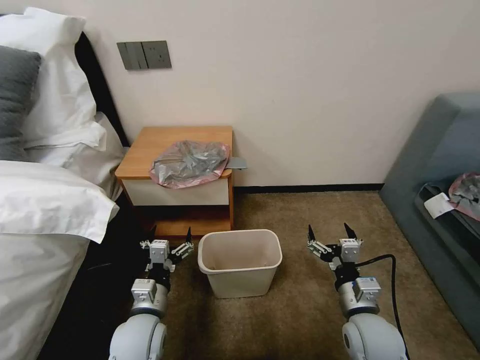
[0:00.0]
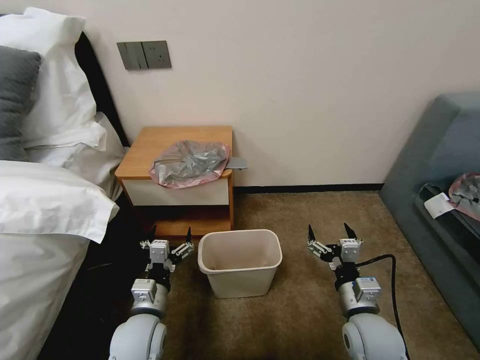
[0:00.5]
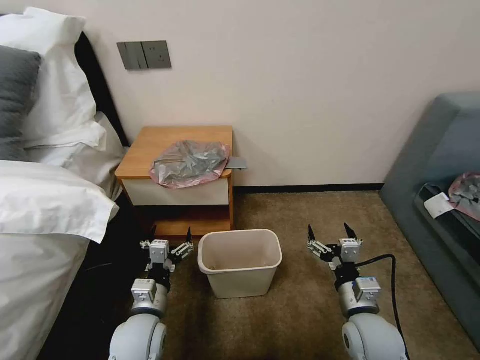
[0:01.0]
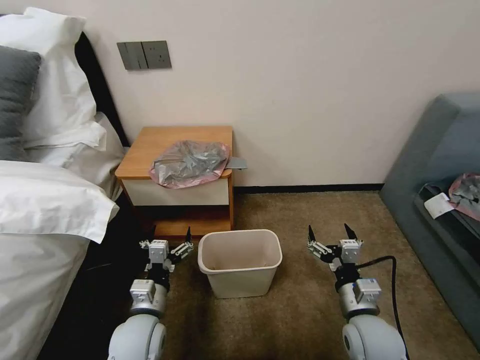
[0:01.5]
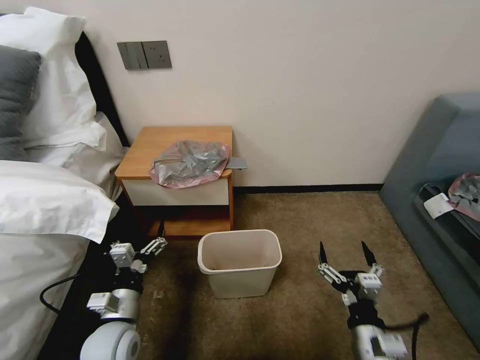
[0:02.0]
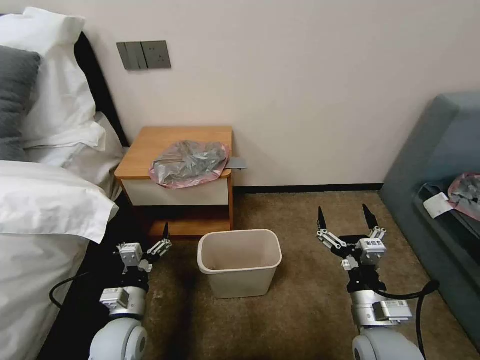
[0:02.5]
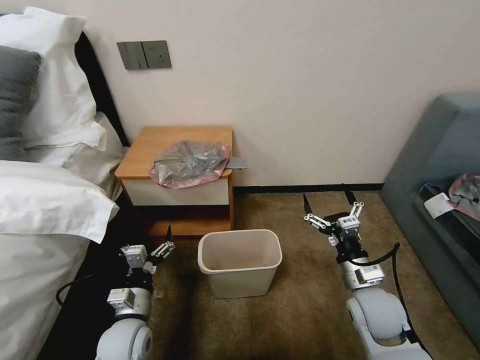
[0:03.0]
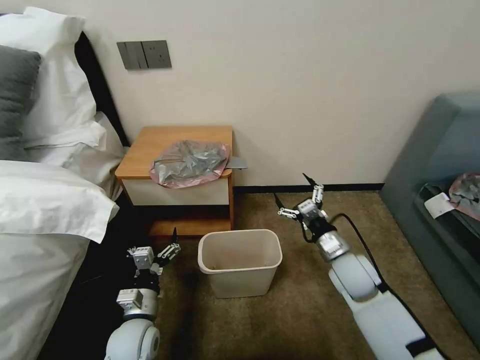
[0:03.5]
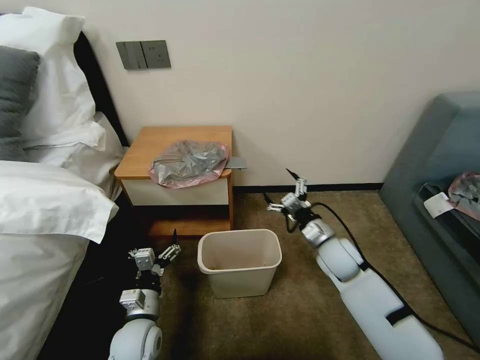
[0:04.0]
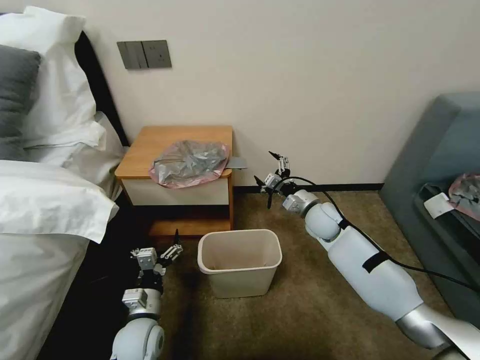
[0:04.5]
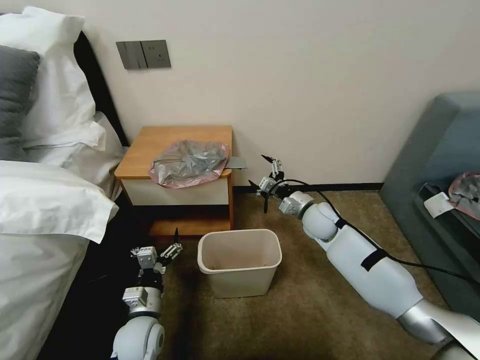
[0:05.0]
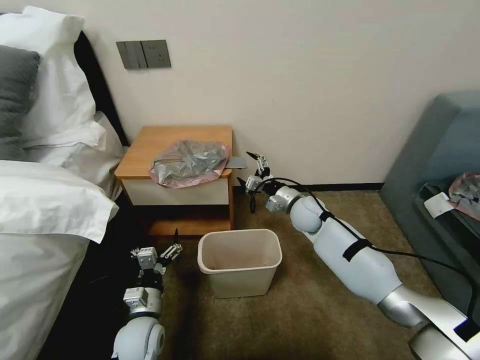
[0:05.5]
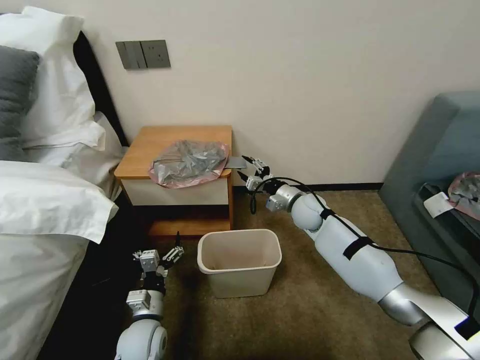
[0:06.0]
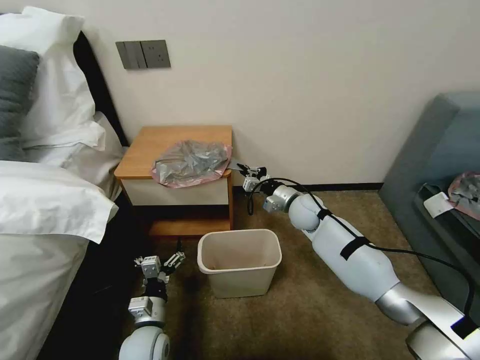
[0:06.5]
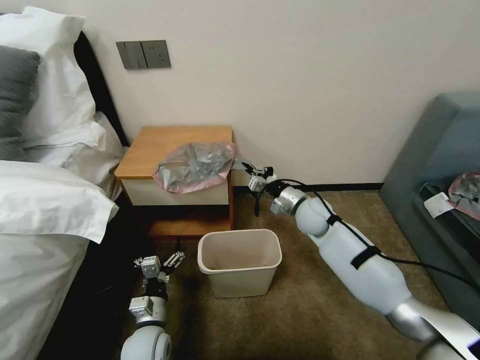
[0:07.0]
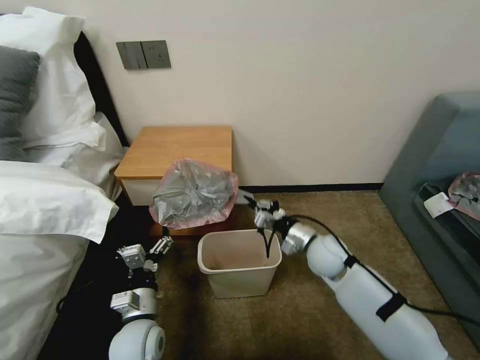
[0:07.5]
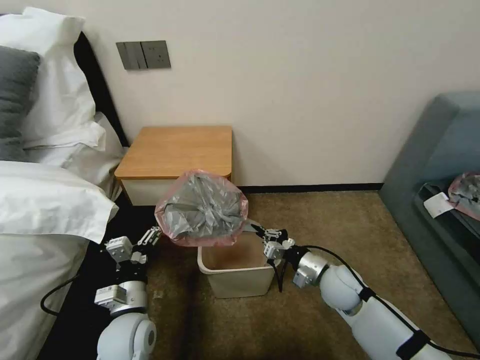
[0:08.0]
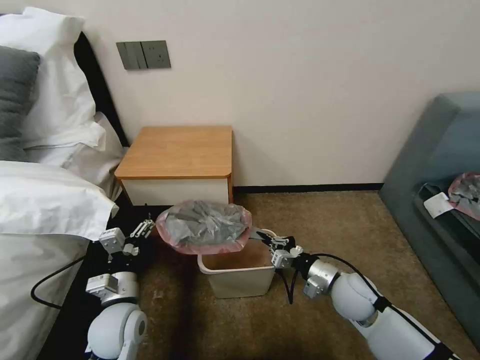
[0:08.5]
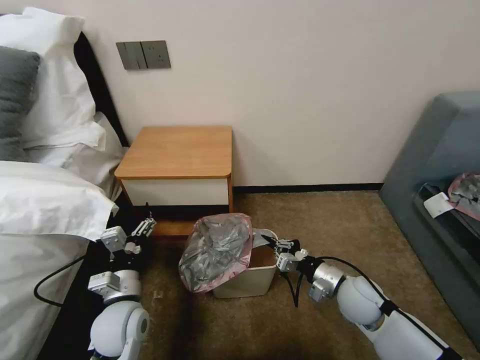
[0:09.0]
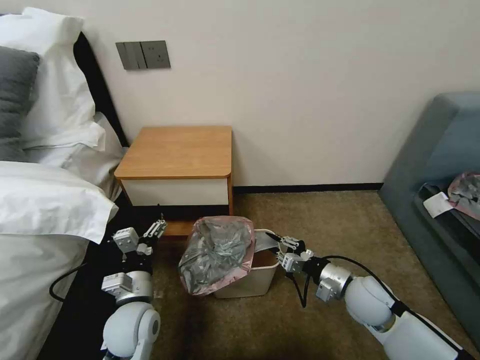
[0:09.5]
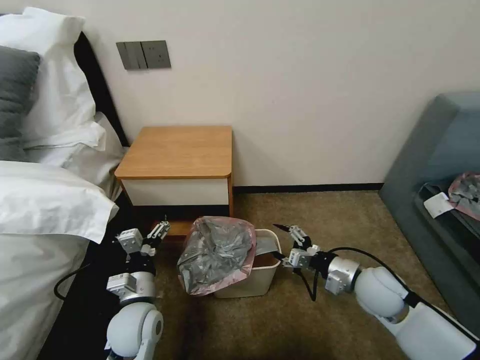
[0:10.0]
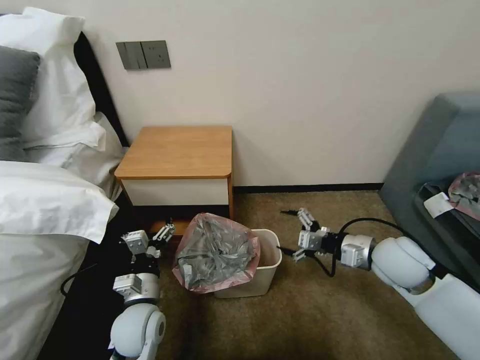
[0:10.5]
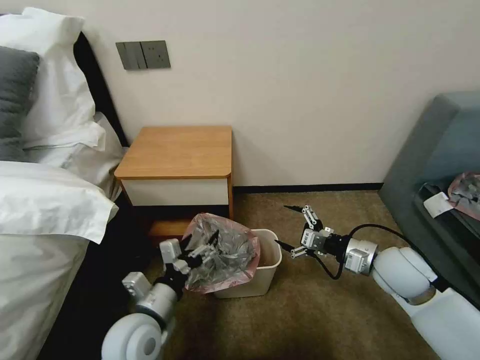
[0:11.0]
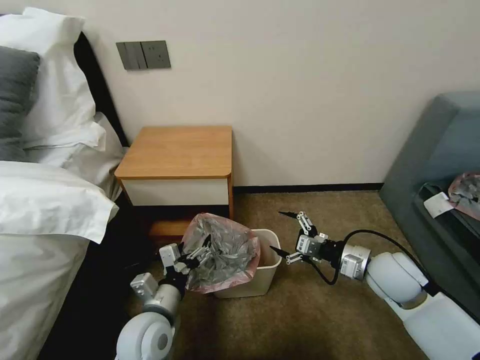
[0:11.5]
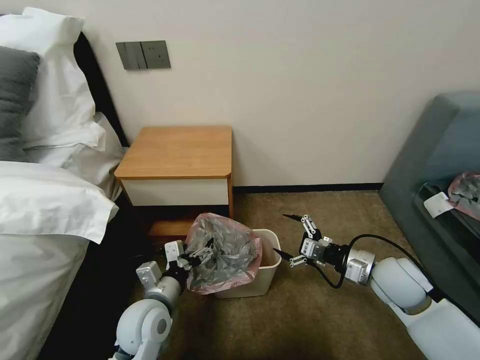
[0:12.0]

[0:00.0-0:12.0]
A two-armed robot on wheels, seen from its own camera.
Task of the whole recording: Pick up the garbage bag from the table and place it over the trash can.
0:02.0 to 0:04.0: The left gripper heads downward, covering some 5 cm; the right gripper is displaced forward by about 25 cm.
0:04.0 to 0:06.0: The right gripper goes roughly 15 cm forward and to the left, and closes its fingers.
0:06.0 to 0:08.0: The right gripper is displaced backward by about 20 cm, and closes; the left gripper shifts roughly 10 cm upward.
0:08.0 to 0:10.0: The right gripper goes some 5 cm to the right, and opens.

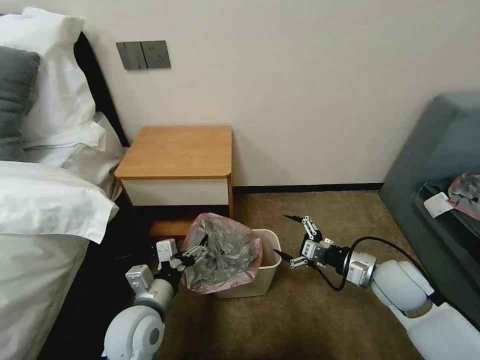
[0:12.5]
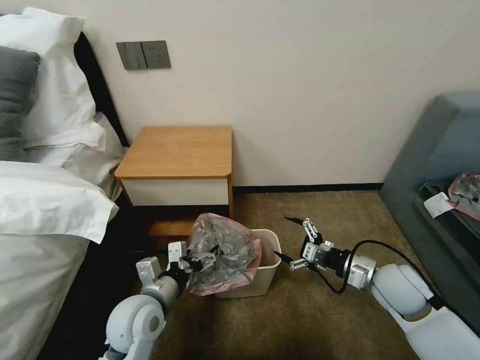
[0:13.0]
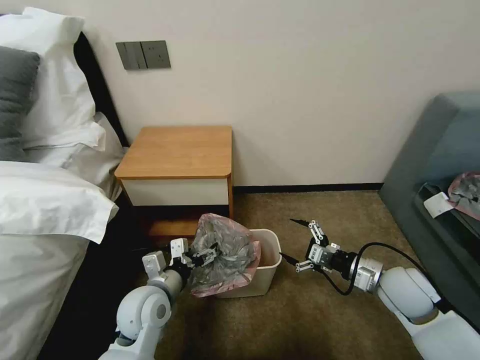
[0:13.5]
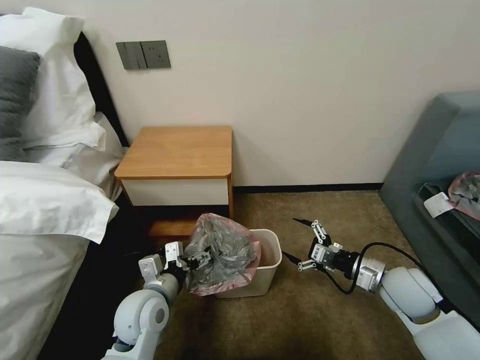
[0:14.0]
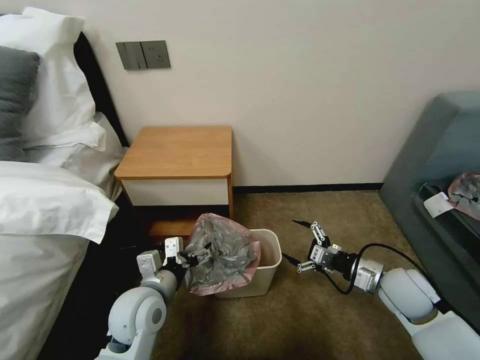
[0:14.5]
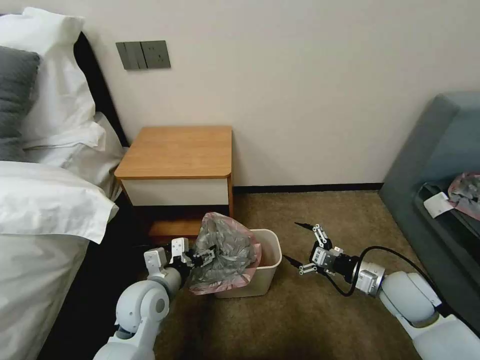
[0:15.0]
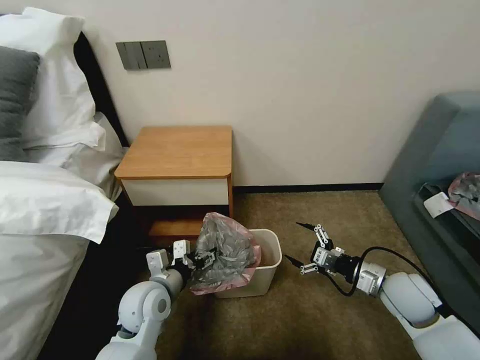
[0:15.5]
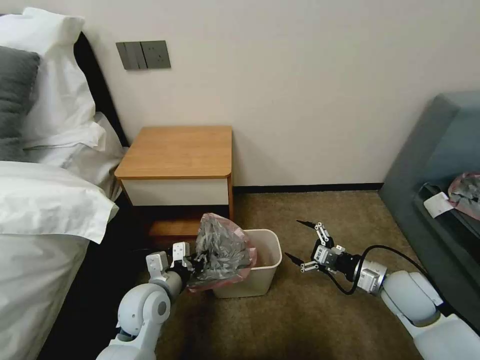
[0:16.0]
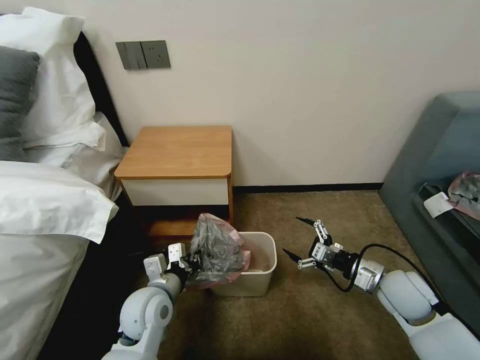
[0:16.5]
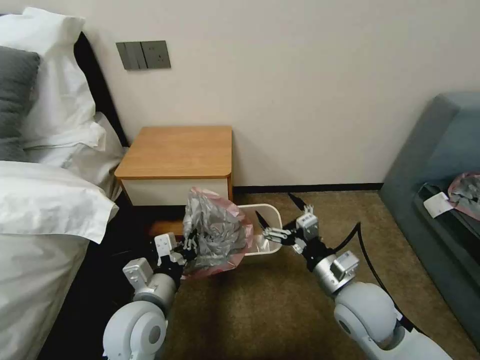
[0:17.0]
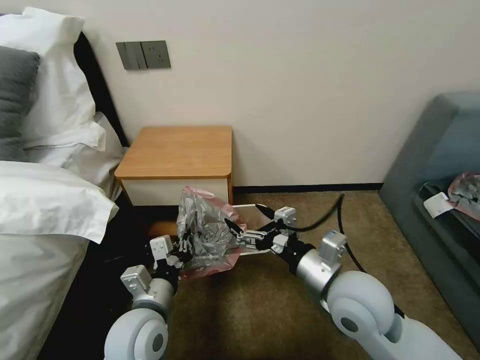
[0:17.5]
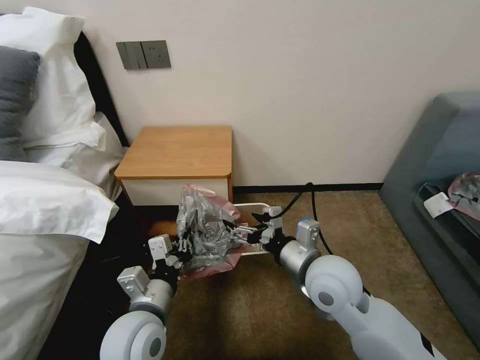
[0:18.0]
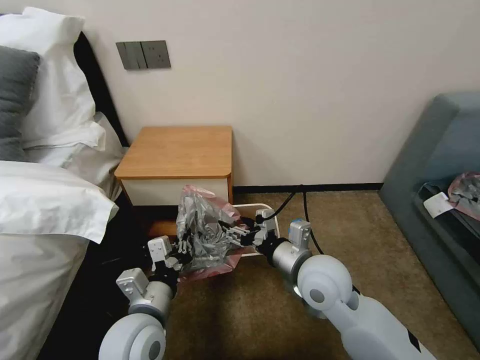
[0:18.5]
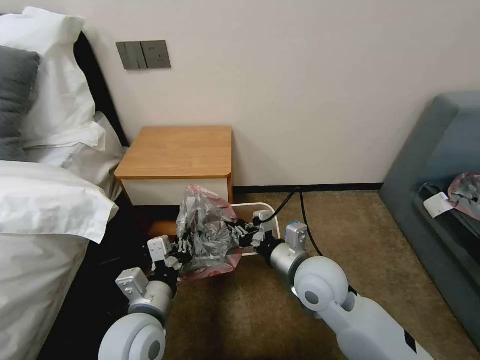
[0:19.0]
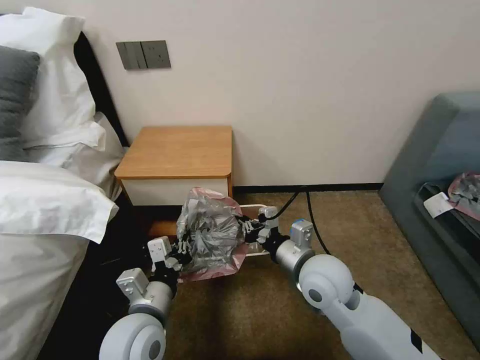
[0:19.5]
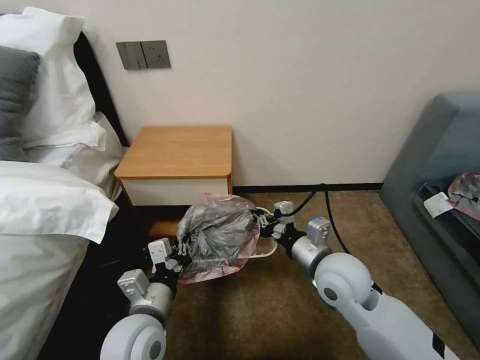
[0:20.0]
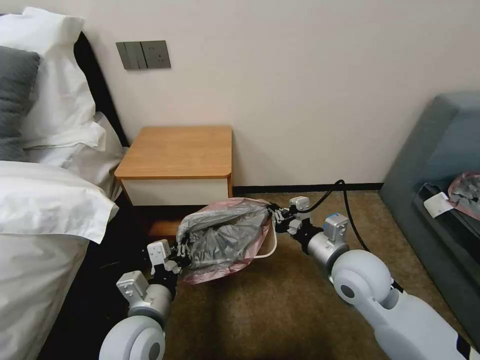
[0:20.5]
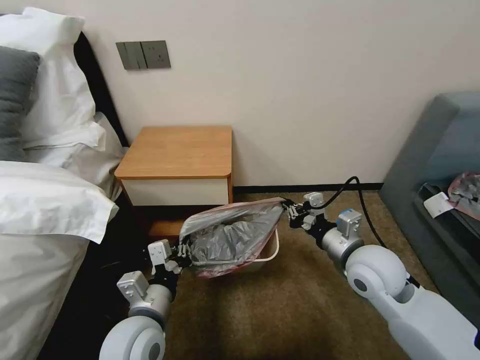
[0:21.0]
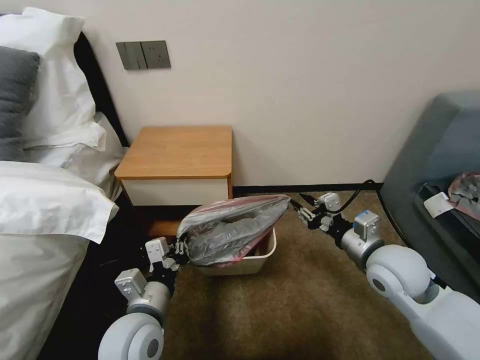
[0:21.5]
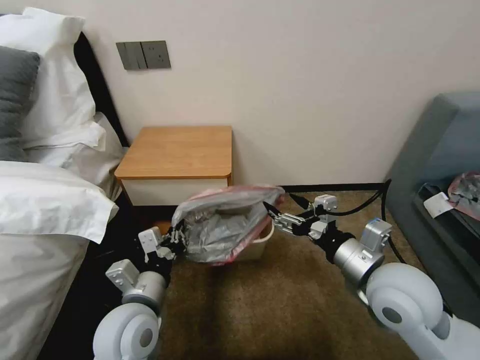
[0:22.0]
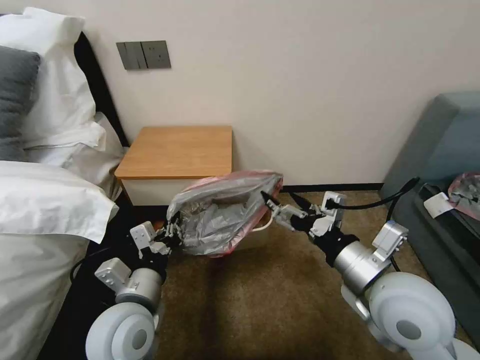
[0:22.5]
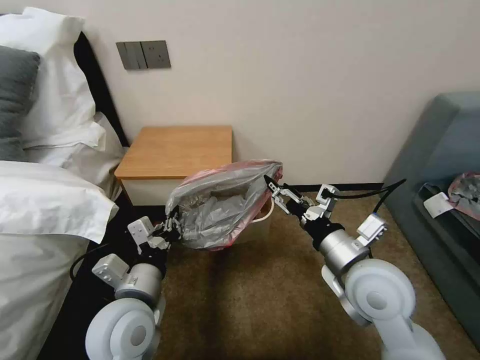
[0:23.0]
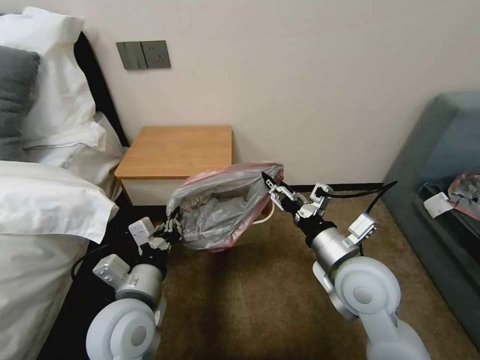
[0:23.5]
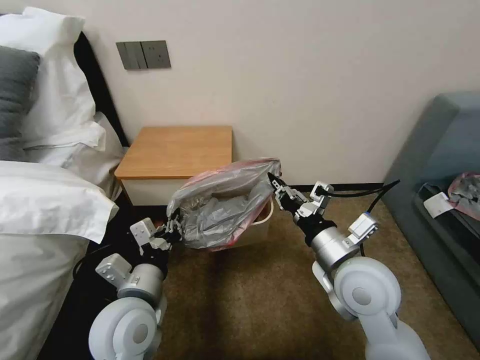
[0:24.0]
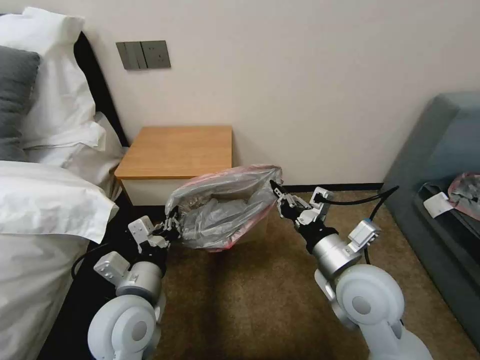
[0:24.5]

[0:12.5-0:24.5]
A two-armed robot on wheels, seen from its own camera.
Task of the whole recording: Pick up the garbage bag from the table and place it over the trash can.
0:12.5 to 0:14.5: The grippers make only small movements.
0:14.5 to 0:16.5: The left gripper closes.
0:16.5 to 0:18.5: The left gripper is displaced backward and upward by some 10 cm, while the right gripper heads to the left and upward, covering roughly 20 cm.
0:18.5 to 0:20.5: The right gripper shifts approximately 5 cm to the right, and closes up.
0:20.5 to 0:22.5: The right gripper travels backward and upward by some 10 cm, and opens.
0:22.5 to 0:24.5: The right gripper changes place by roughly 5 cm, and closes its fingers.

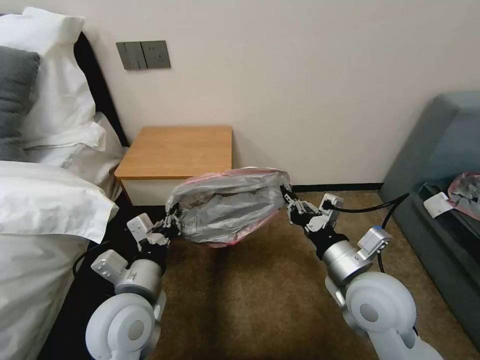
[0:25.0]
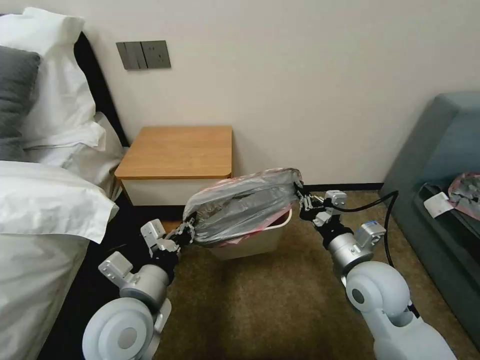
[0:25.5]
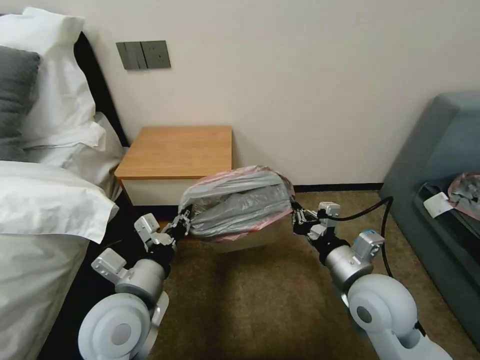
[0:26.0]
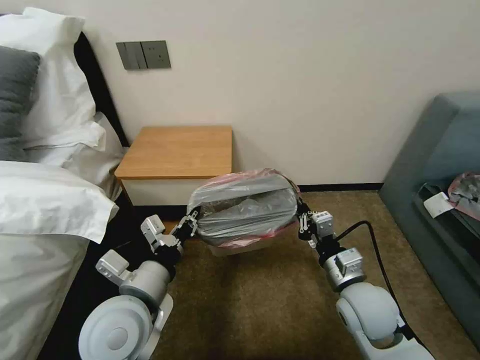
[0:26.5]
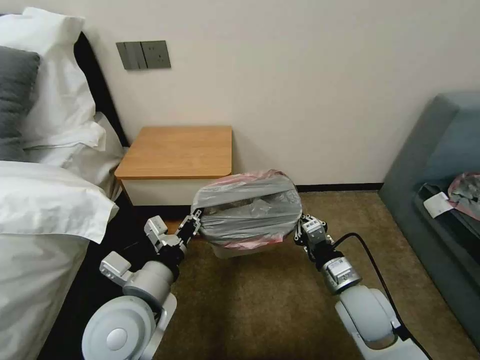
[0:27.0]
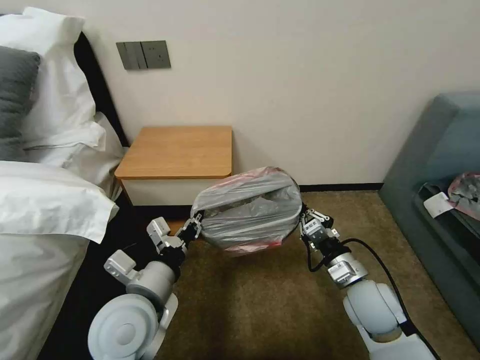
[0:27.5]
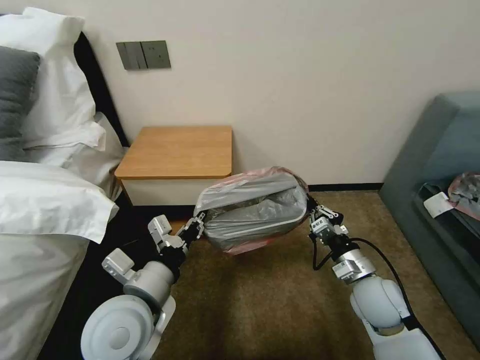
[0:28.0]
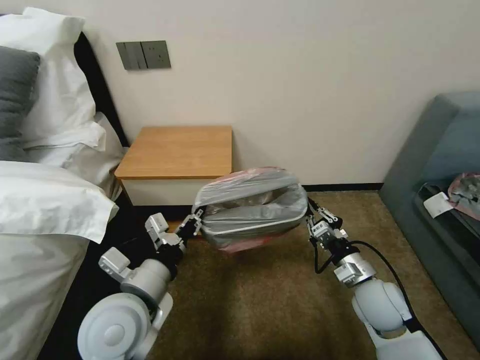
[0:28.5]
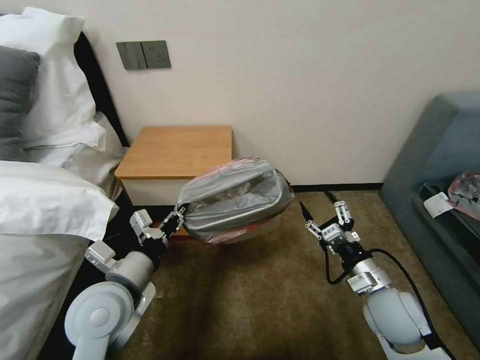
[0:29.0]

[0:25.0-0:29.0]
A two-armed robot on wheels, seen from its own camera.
Task of the whole recording: Pick up the garbage bag from the table and place it over the trash can.
0:25.0 to 0:27.0: The right gripper heads downward, covering some 10 cm.
0:27.0 to 0:29.0: The right gripper shifts some 5 cm to the right, and opens. Meanwhile the left gripper moves about 5 cm.
